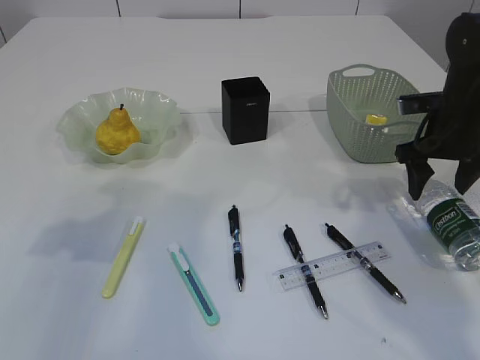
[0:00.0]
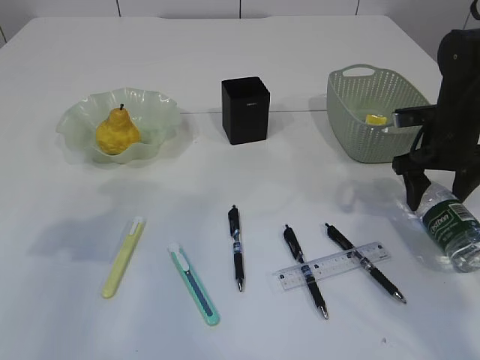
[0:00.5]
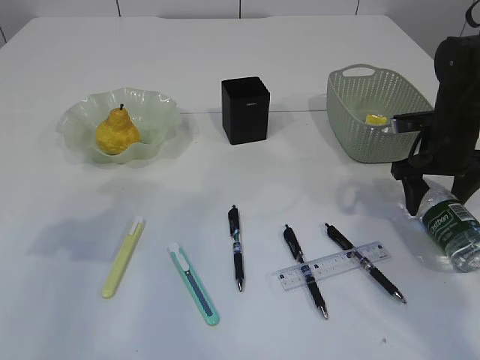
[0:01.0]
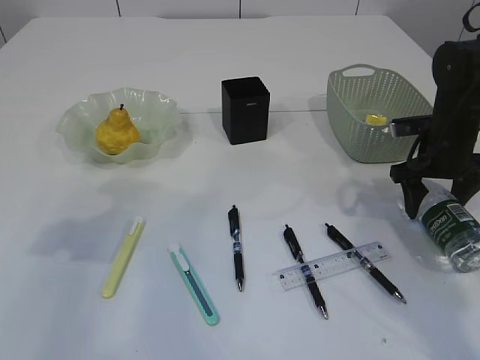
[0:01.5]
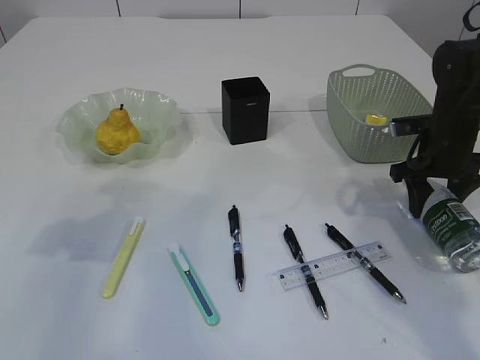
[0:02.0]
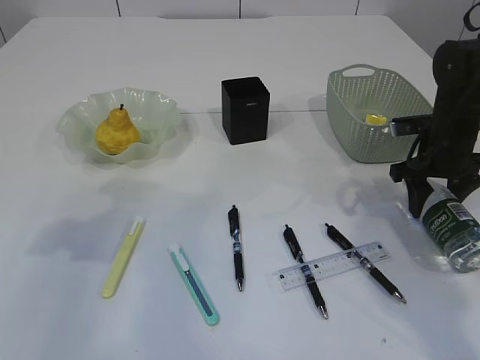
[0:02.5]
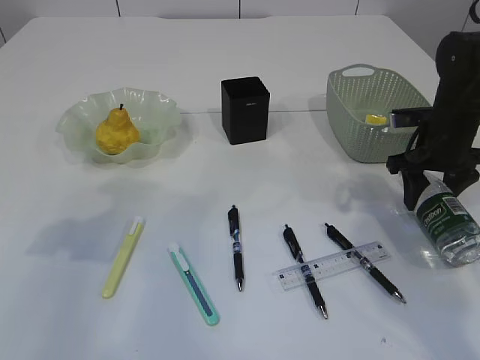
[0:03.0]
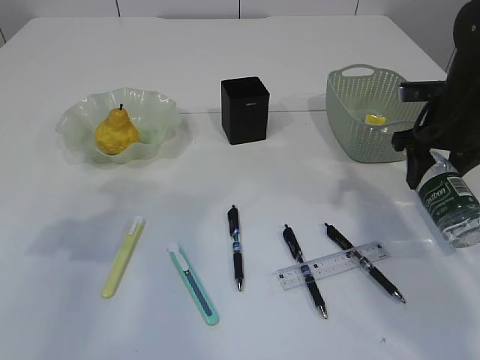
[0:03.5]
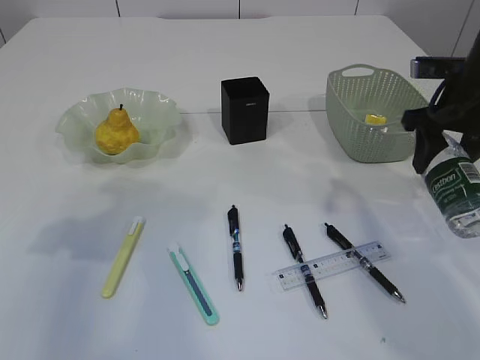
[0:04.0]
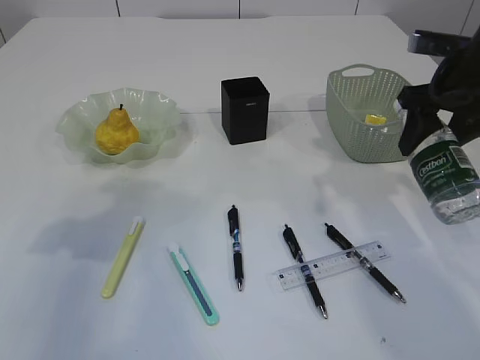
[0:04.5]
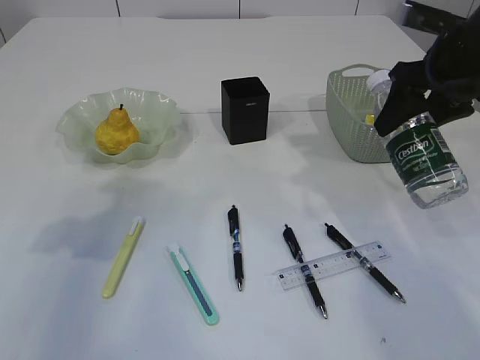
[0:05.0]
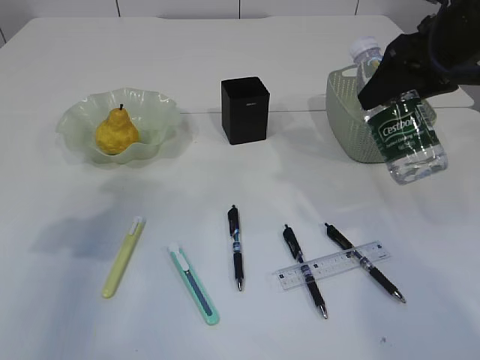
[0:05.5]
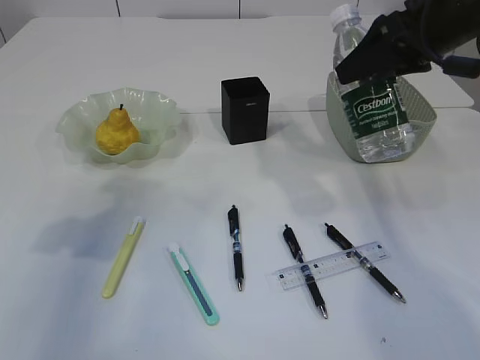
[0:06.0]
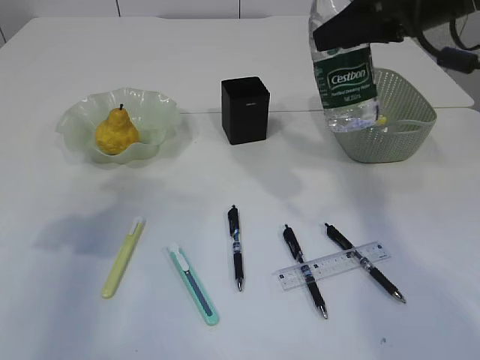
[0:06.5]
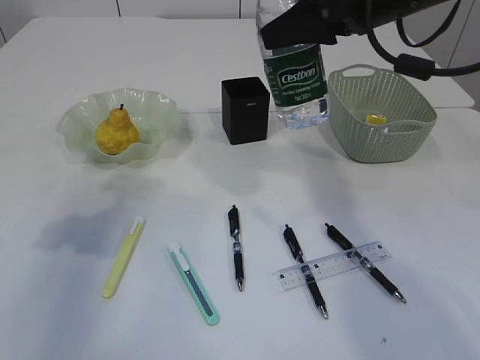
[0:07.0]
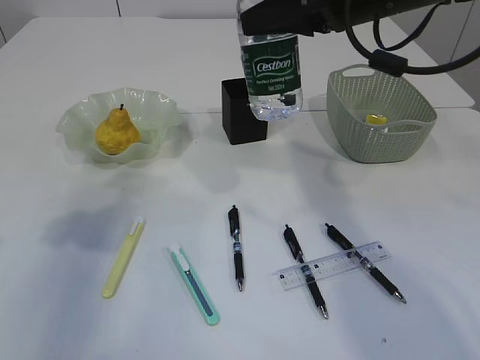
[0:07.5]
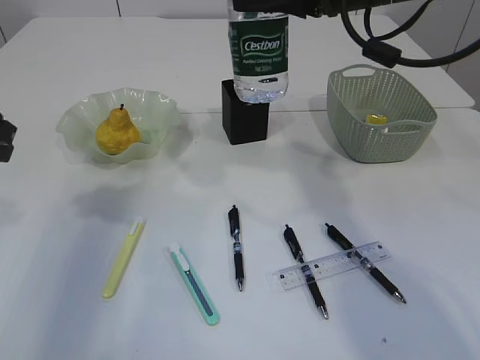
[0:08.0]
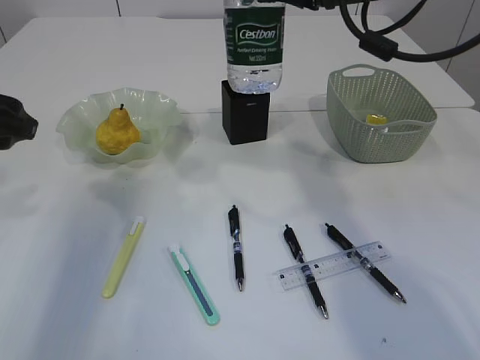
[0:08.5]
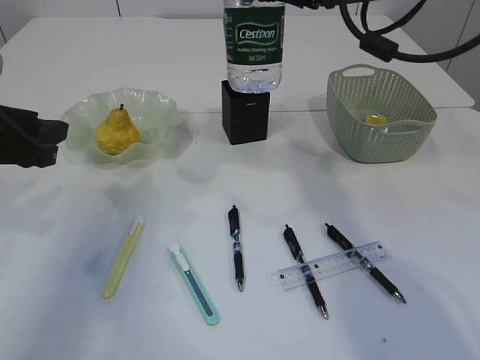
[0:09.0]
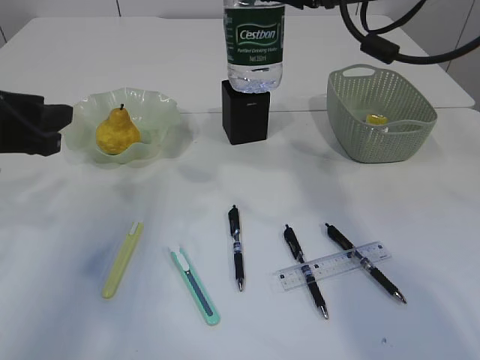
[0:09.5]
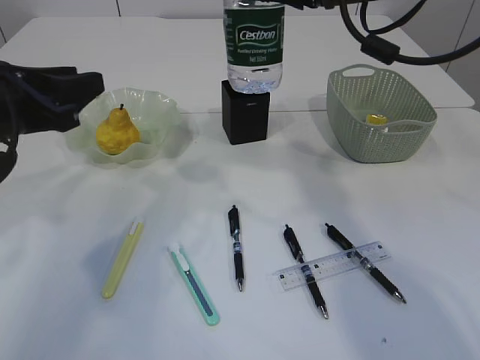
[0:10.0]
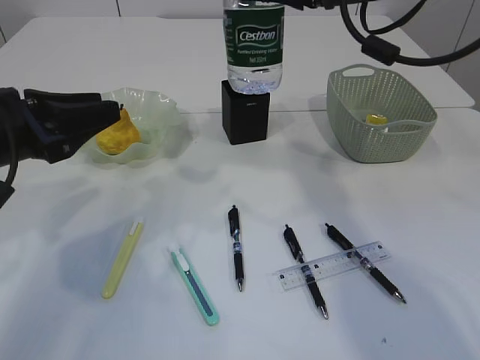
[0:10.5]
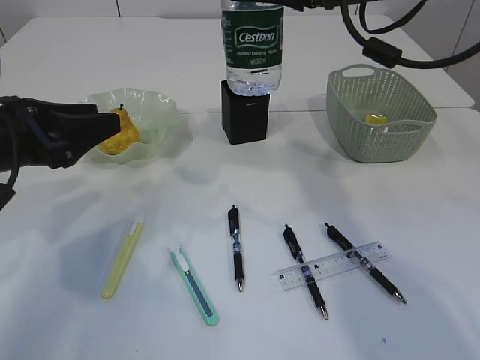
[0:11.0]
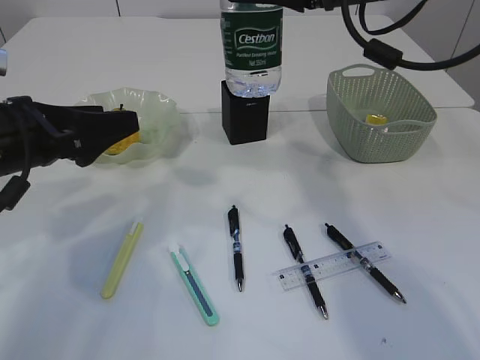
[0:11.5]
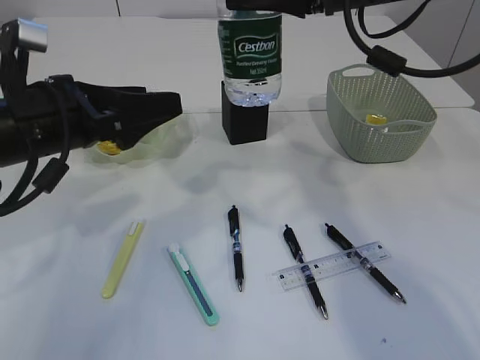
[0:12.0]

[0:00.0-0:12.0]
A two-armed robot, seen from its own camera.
Step, 0:00.0 to 0:04.5: Pick up the bottle with the right arm.
0:00.0 to 0:02.0: The grippers move only a little.
0:02.0 to 0:04.0: The right gripper heads upward, covering about 10 cm.
0:04.0 to 0:06.0: The right gripper is displaced upward and to the left by approximately 10 cm.
0:06.0 to 0:08.0: The right gripper travels to the left by some 10 cm.
0:10.0 to 0:12.0: The left gripper opens up.

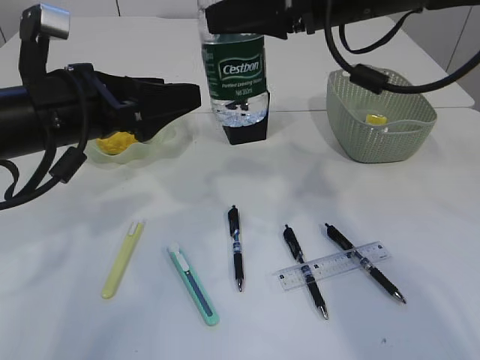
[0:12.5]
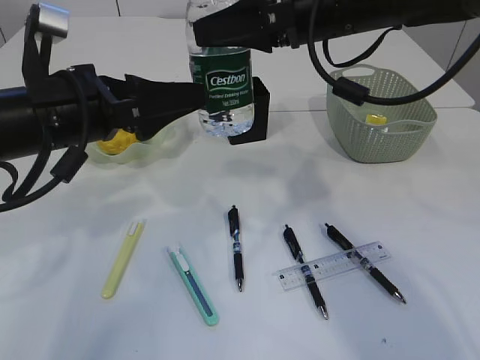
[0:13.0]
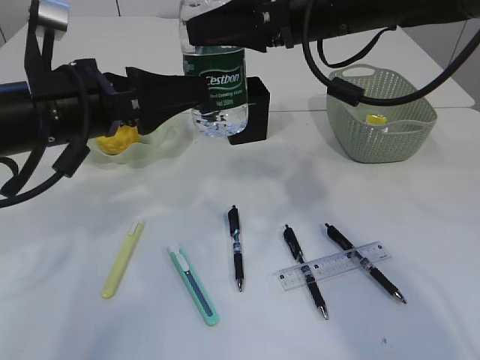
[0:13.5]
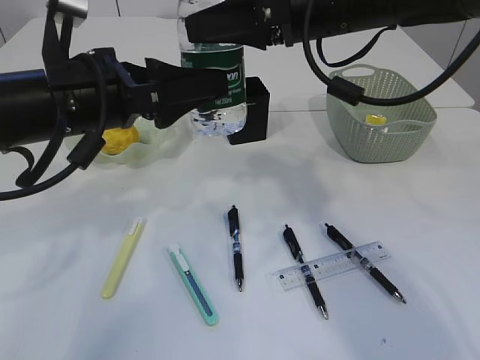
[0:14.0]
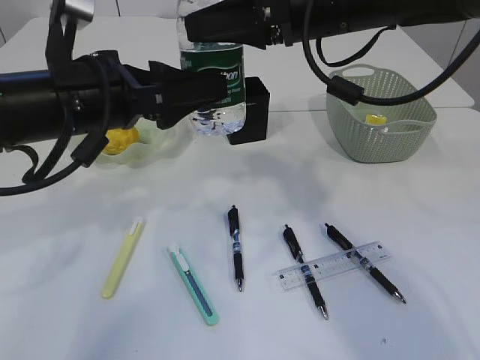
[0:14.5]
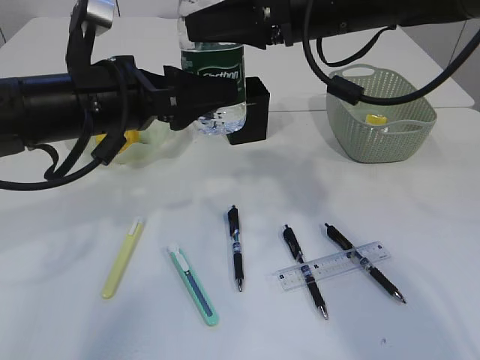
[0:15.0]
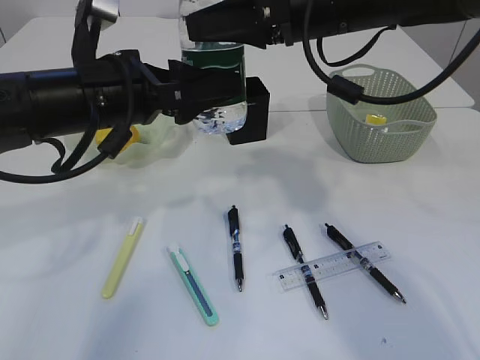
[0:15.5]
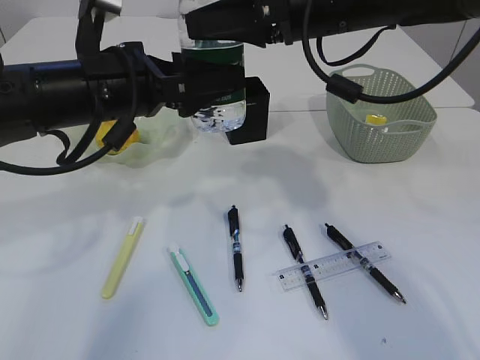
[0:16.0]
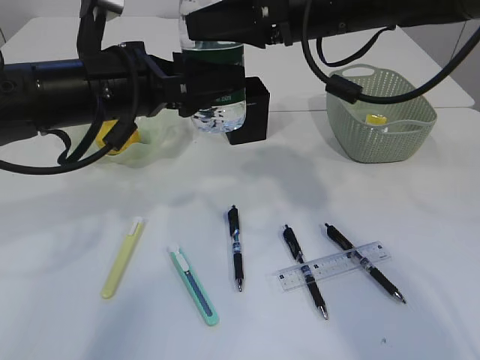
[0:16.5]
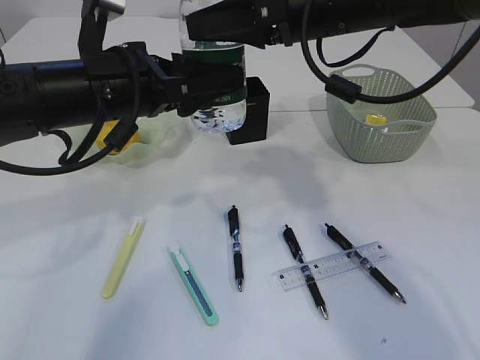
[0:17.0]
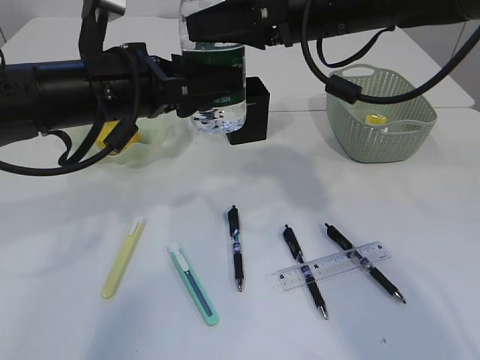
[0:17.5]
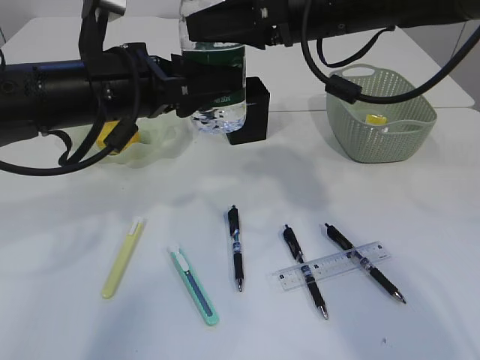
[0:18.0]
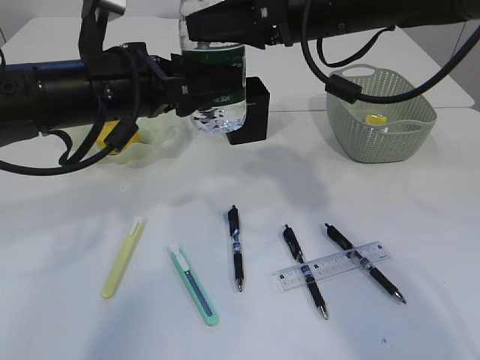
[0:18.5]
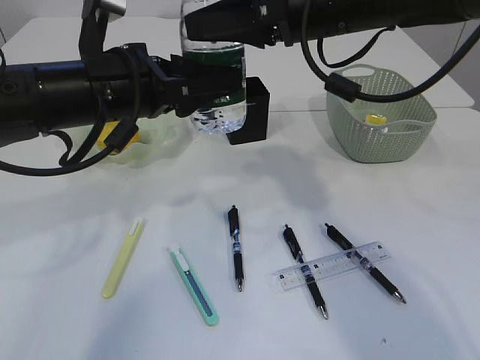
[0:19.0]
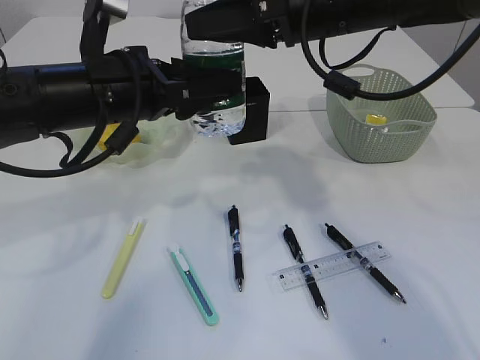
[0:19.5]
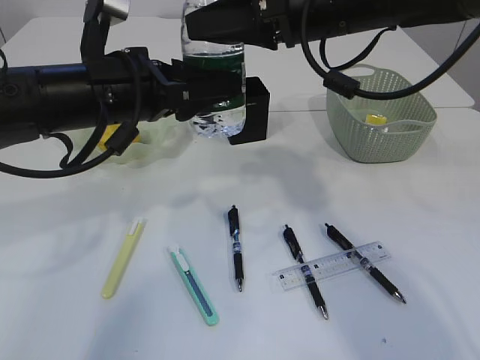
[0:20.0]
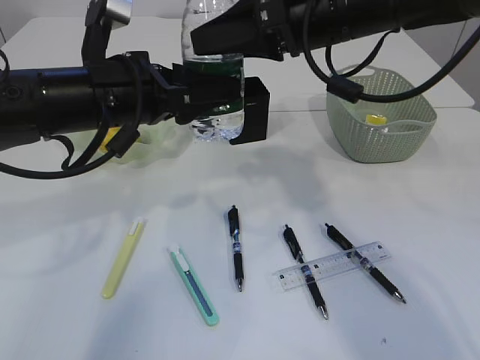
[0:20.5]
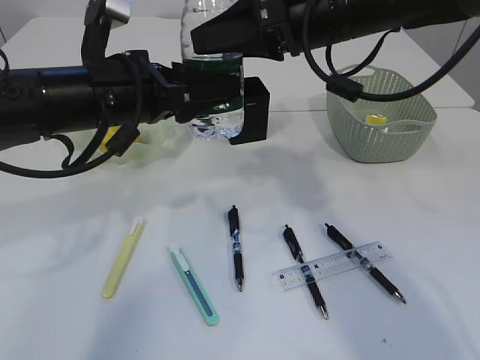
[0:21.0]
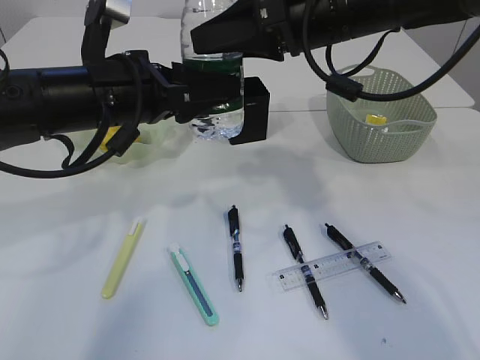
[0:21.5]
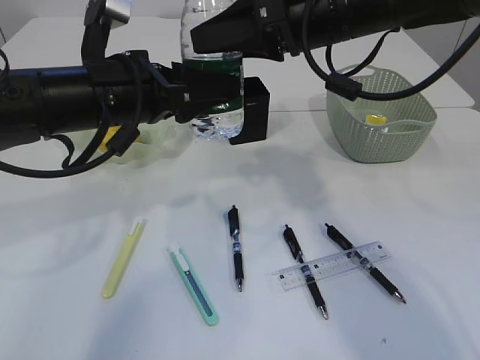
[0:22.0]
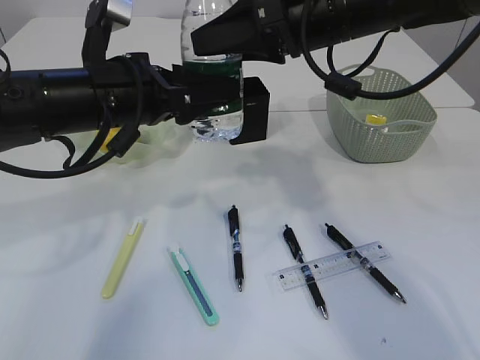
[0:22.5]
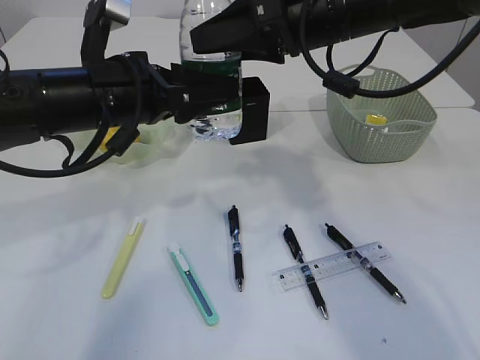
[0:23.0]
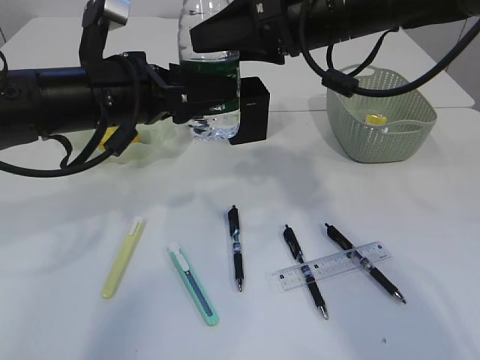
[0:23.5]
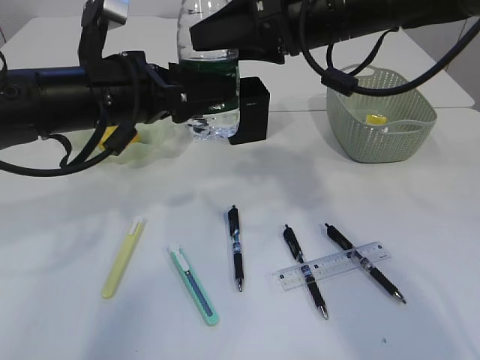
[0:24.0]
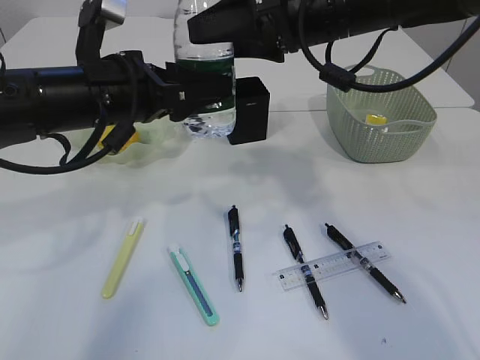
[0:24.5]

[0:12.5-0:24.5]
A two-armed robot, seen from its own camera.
0:12.5 to 0:16.5: There are only small adjustments of the grippers.
0:16.5 to 0:18.5: The left gripper closes its fingers.
0:18.5 to 0:20.5: There are only small adjustments of the grippers.
0:20.5 to 0:22.5: Neither gripper changes place.
0:22.5 to 0:24.5: Both grippers stay put.

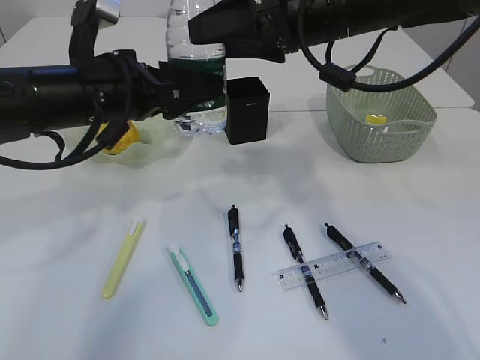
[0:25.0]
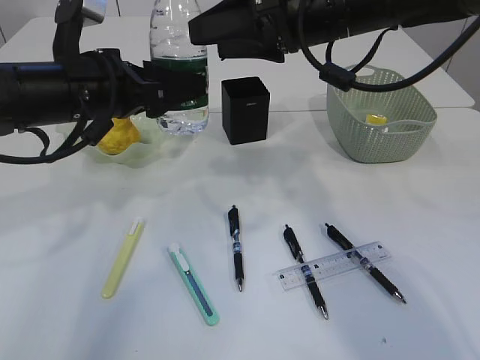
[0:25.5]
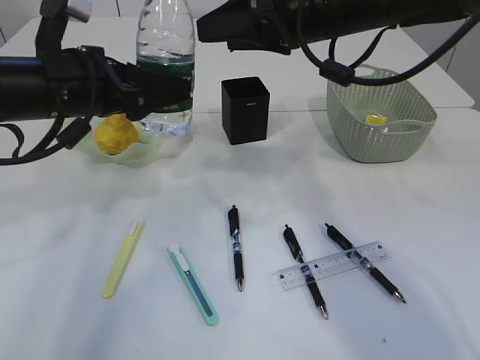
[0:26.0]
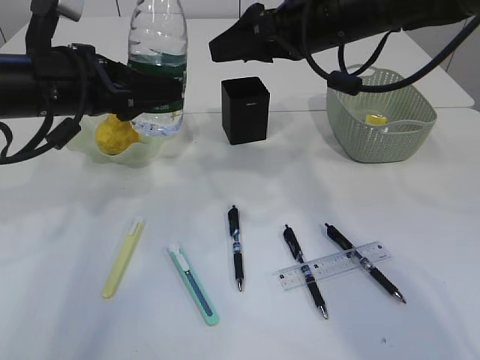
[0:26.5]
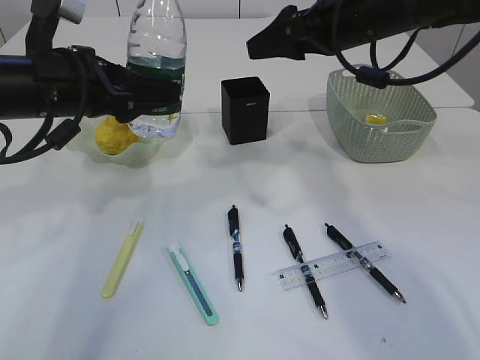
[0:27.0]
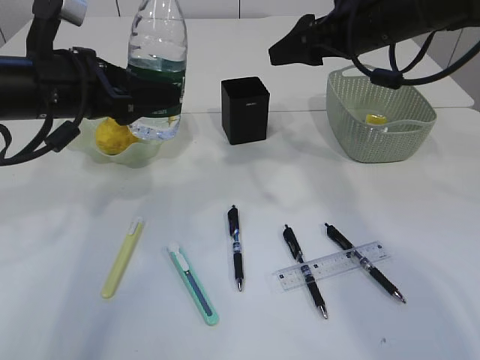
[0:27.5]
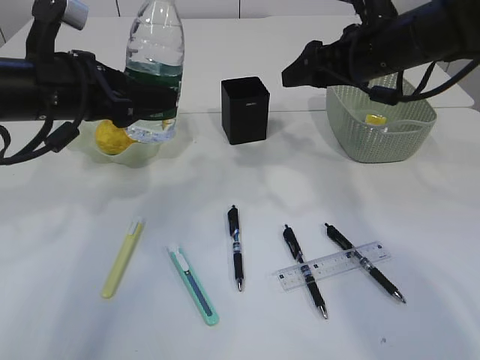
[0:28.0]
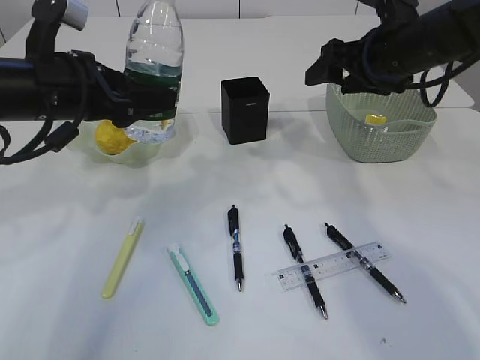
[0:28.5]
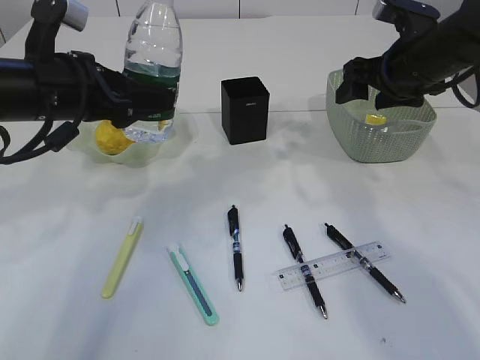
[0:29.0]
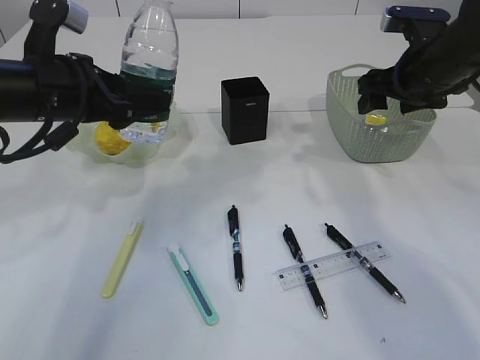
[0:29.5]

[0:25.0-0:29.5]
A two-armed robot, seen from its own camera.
0:25.0 to 0:27.0: The right gripper ends up approximately 5 cm from where it was.
0:27.0 to 0:29.5: The right gripper goes roughly 10 cm to the right and downward.
